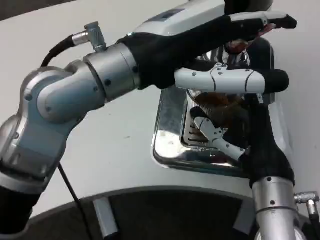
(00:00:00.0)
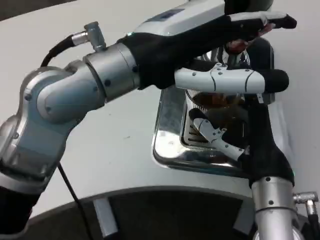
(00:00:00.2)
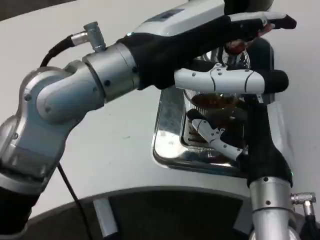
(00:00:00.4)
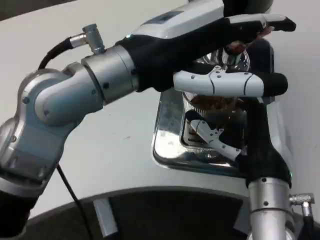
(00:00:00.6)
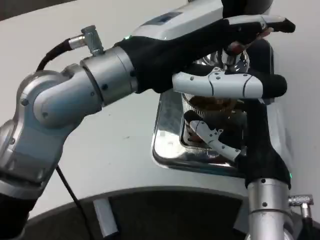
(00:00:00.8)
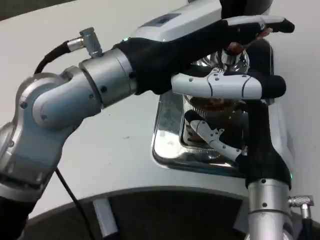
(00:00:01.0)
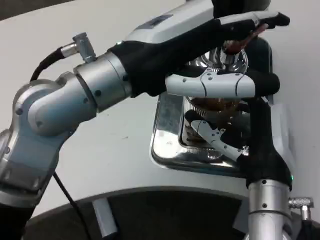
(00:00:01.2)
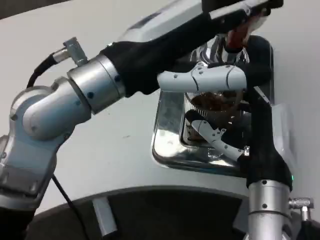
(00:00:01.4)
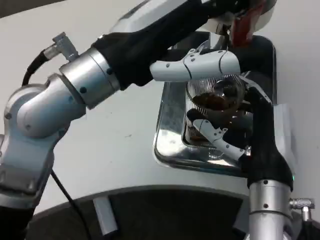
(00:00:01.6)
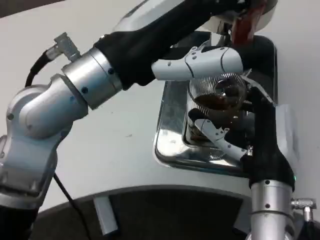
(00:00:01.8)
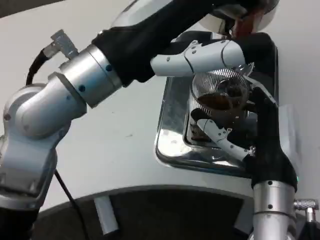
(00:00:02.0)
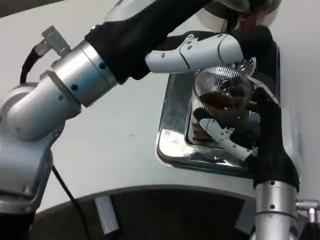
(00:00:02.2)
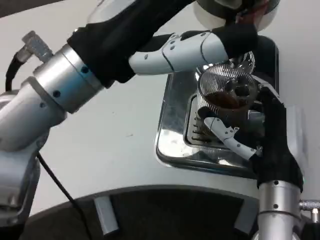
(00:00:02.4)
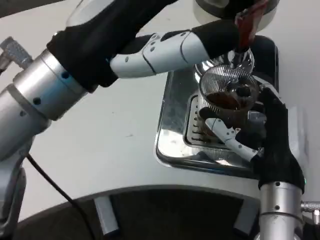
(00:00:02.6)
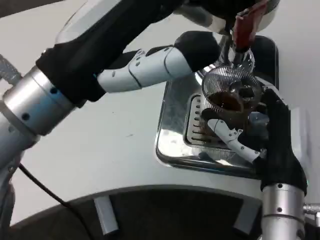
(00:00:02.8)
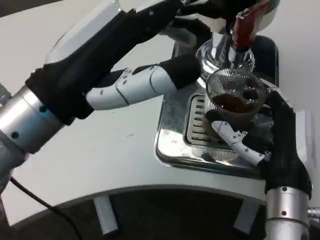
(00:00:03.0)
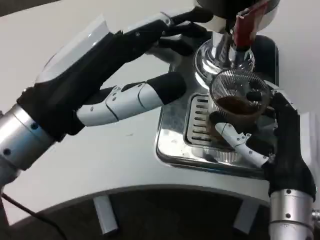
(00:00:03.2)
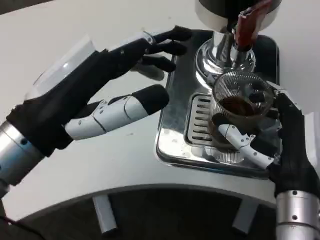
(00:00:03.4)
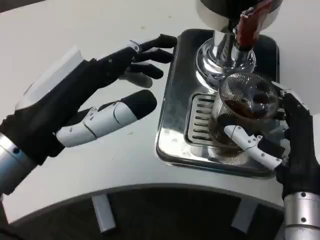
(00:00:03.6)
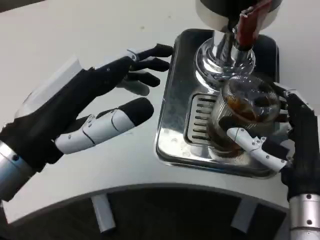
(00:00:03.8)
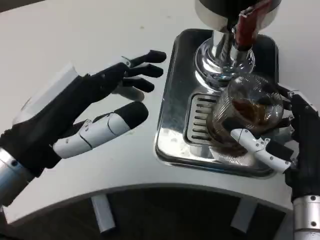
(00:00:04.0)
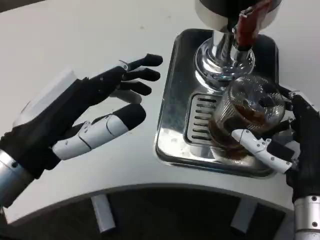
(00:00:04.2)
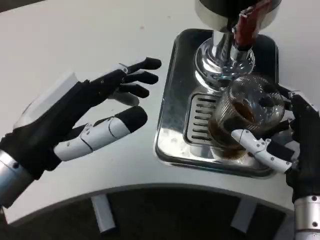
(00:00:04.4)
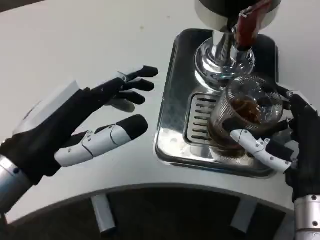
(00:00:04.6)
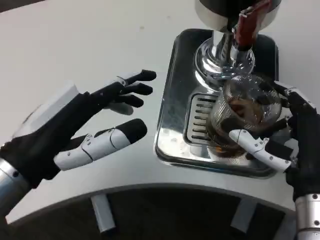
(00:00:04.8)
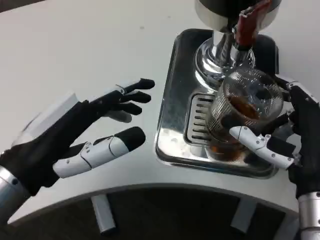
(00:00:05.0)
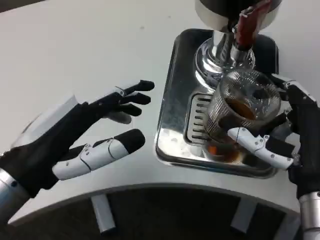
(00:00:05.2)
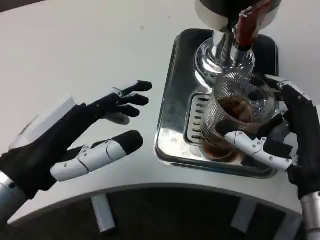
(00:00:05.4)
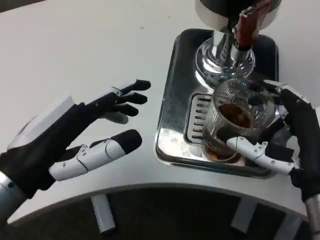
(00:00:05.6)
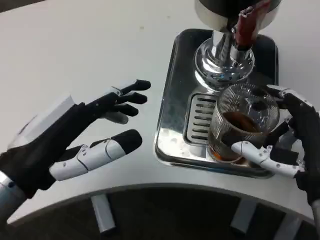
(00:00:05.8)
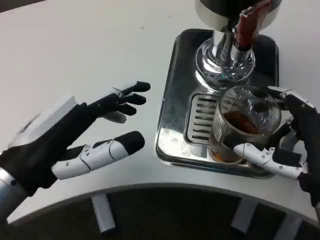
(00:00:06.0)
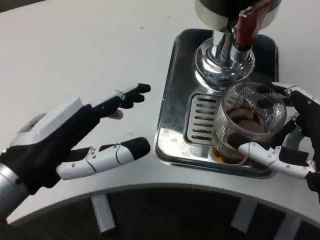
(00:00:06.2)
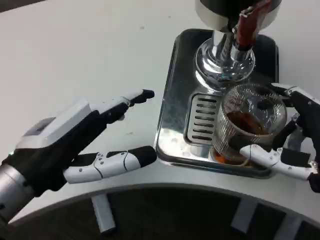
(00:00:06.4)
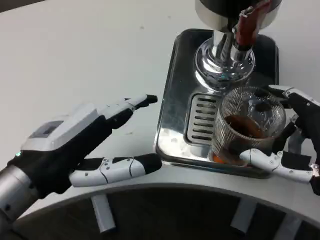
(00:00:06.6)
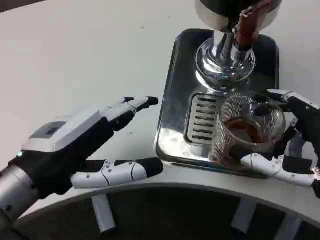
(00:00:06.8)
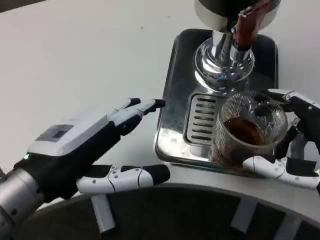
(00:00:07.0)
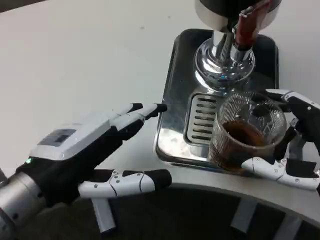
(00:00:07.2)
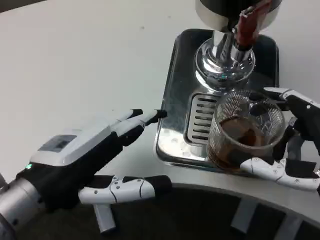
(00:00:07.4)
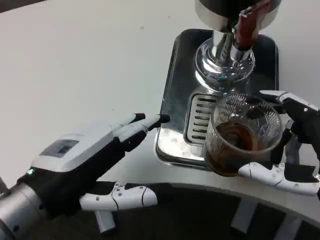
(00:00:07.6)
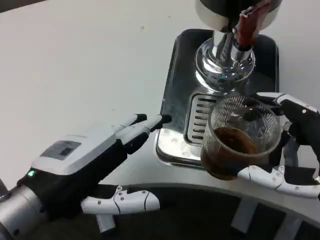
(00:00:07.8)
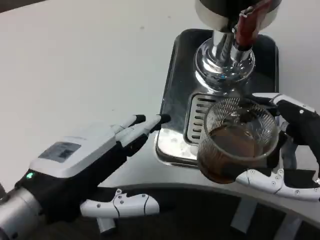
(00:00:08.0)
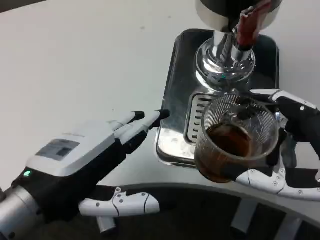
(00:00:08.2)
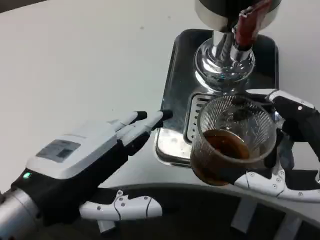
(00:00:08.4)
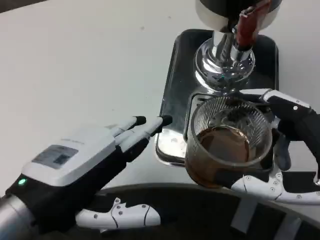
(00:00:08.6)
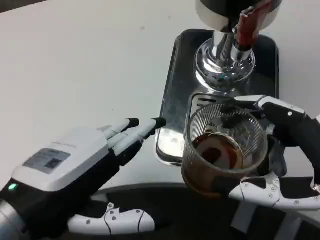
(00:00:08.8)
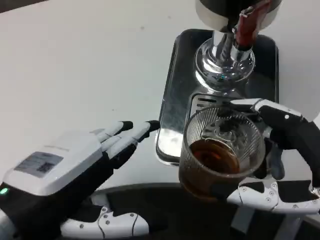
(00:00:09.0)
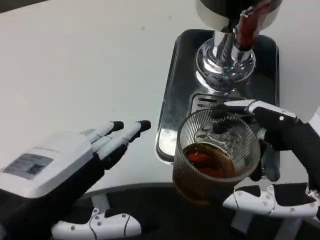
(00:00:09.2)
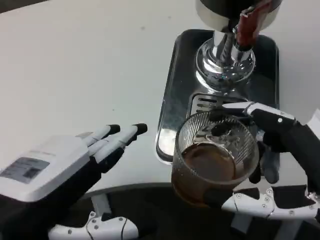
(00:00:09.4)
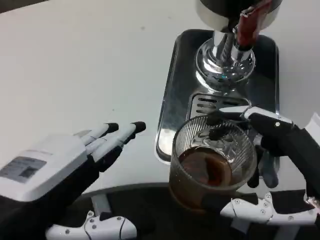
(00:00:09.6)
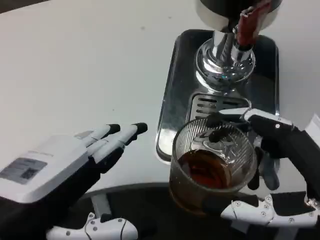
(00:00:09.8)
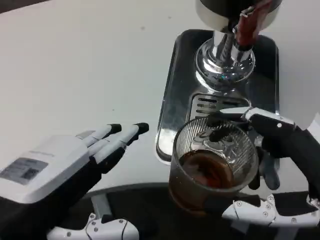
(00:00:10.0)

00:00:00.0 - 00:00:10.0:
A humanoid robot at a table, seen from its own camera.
Task of the whole recording: Grasp the cup under the faucet to collect the drink, then remove the cup.
00:00:01.4 - 00:00:02.8: The left hand ends up approximately 5 cm from where it was.
00:00:02.8 - 00:00:04.2: The left hand is displaced downward by approximately 5 cm.

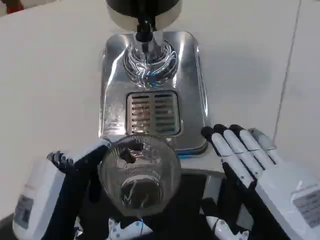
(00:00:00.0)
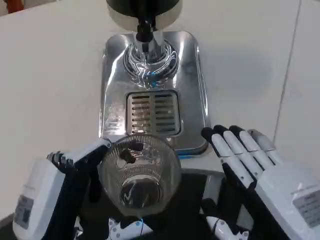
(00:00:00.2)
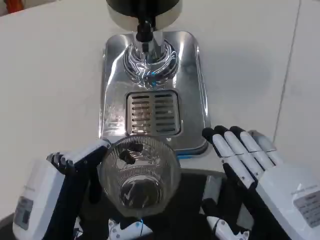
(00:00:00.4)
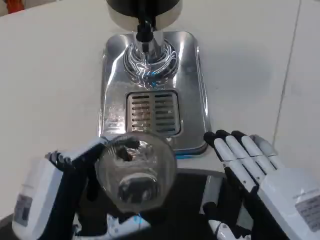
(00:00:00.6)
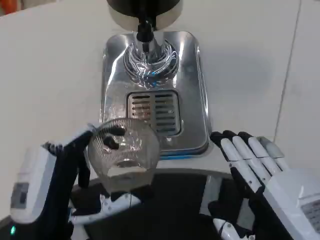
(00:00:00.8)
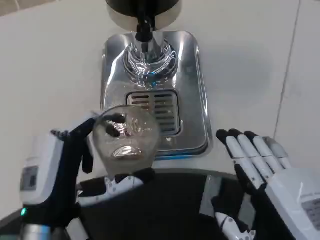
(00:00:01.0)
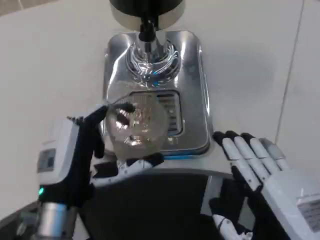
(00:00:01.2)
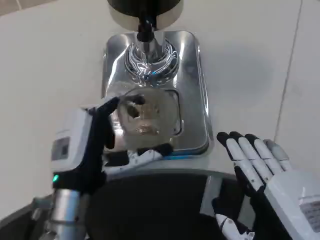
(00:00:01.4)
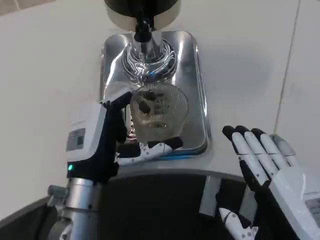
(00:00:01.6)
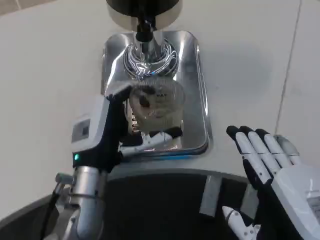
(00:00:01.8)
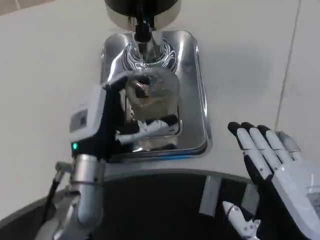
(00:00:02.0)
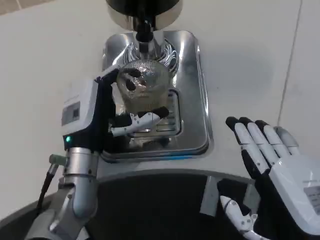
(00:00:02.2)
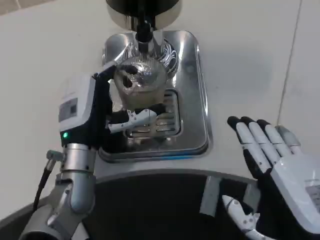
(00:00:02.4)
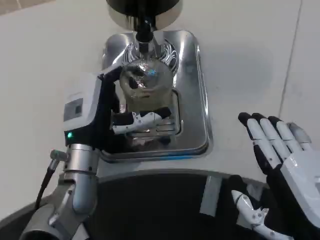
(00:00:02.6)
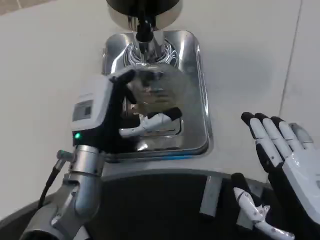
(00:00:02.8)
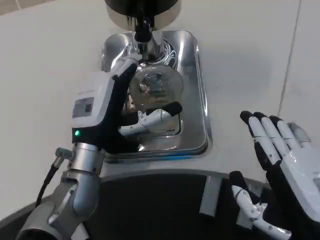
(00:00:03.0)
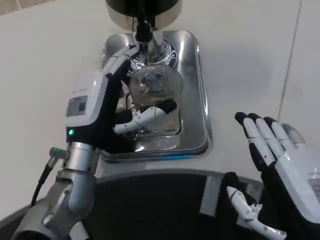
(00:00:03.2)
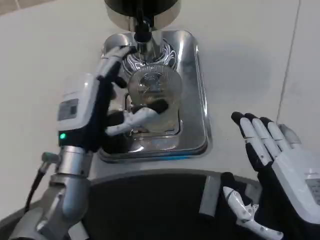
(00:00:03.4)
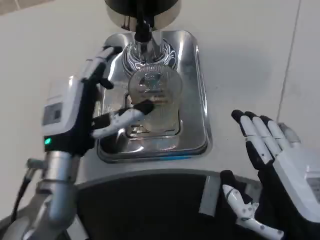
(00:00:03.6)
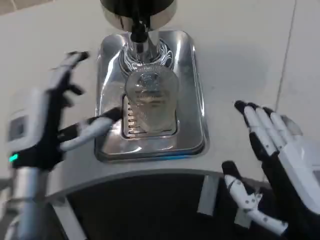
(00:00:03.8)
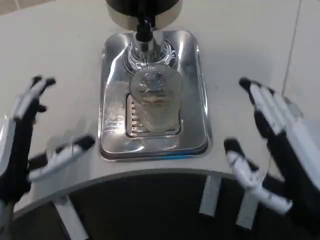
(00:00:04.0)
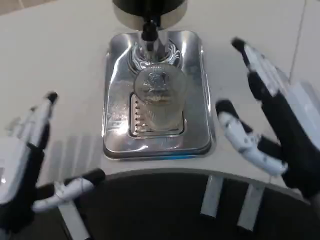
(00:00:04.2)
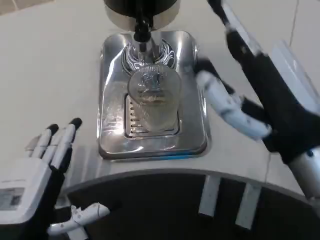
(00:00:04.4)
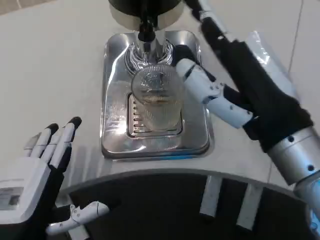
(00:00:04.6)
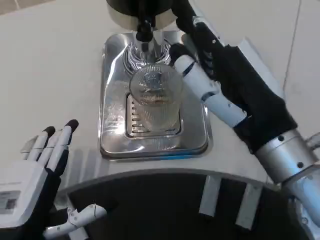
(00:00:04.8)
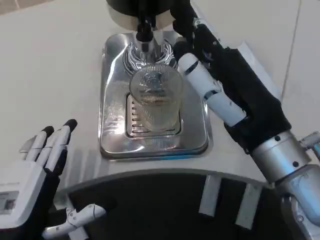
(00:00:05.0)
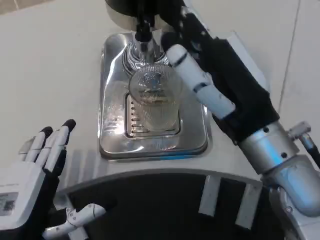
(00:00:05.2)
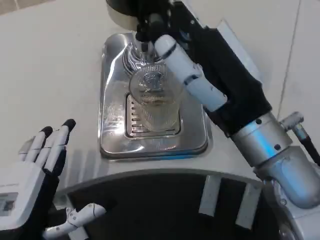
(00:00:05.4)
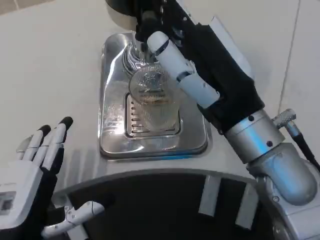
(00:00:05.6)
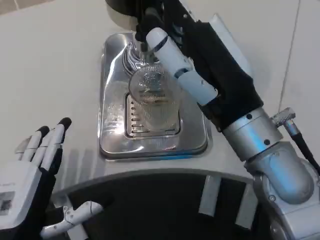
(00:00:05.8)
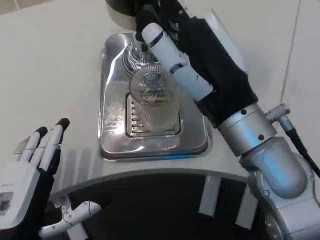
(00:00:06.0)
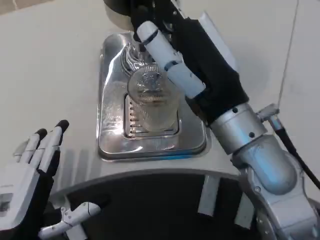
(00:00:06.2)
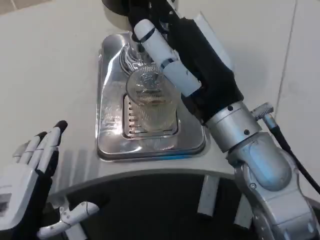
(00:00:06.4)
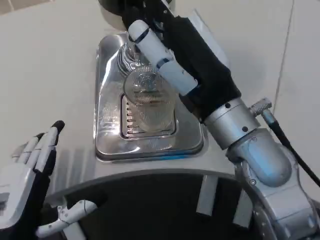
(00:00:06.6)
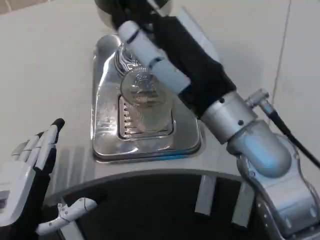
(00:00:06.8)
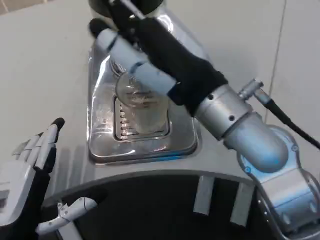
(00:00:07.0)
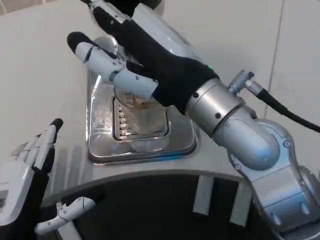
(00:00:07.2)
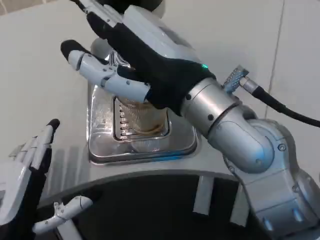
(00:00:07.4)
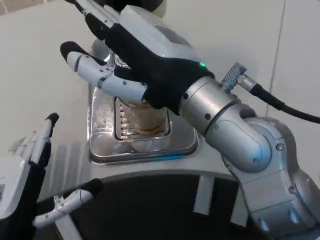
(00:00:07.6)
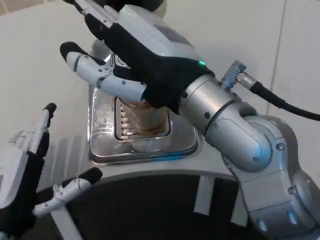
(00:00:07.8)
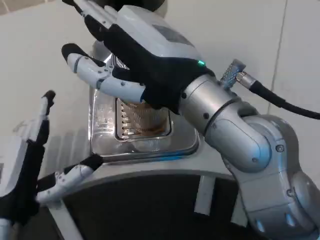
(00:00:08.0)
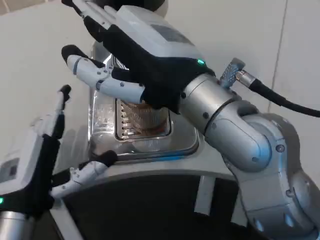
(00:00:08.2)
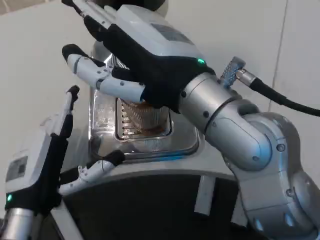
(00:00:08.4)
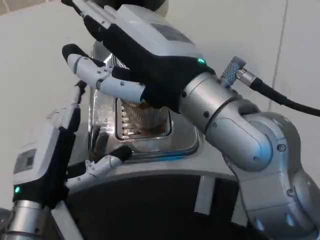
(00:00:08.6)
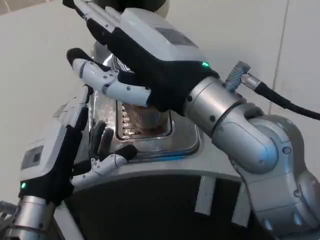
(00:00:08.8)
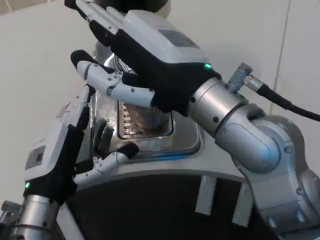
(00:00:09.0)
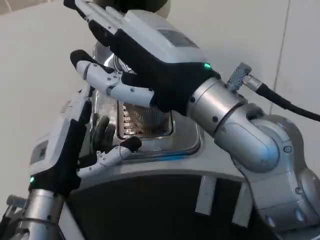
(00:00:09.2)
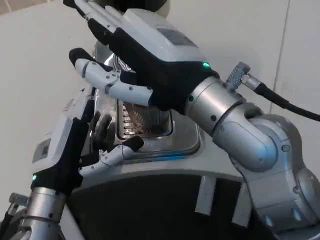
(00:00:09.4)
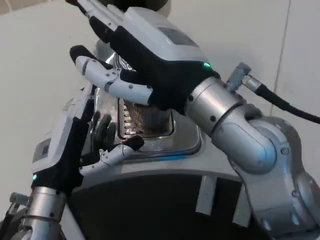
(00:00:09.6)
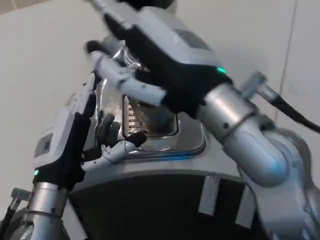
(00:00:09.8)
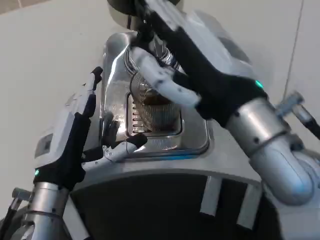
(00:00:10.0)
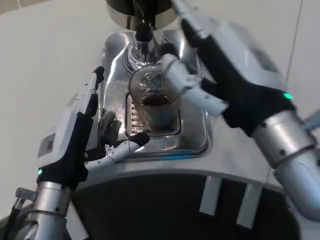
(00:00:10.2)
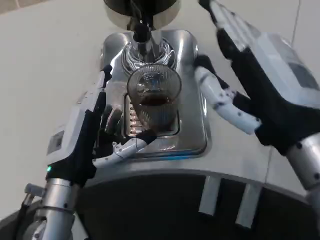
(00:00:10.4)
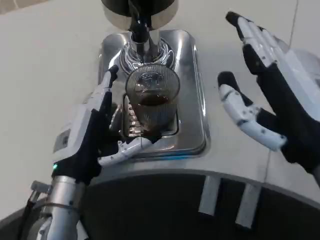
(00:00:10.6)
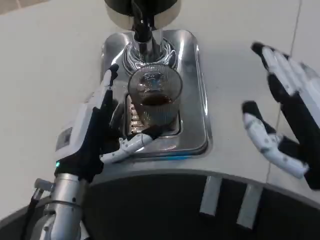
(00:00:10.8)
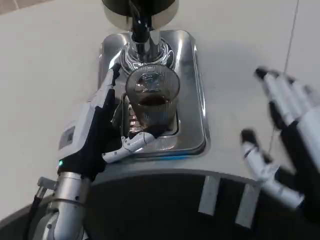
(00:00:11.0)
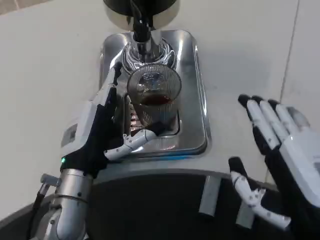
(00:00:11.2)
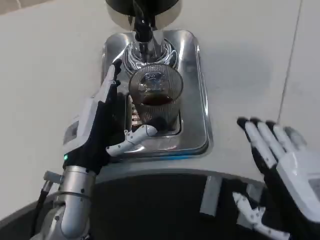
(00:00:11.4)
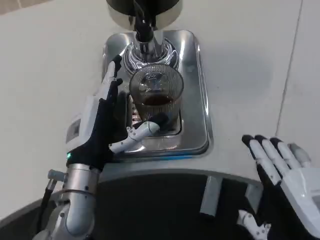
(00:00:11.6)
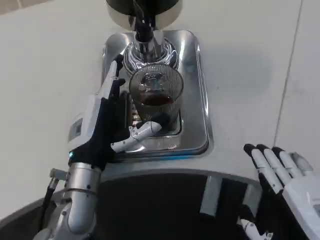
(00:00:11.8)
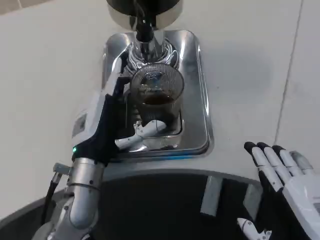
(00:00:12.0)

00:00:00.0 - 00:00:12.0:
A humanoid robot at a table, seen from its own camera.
Task of the whole recording: Grasp the cup under the faucet to collect the drink, then remove the cup.
00:00:00.0 - 00:00:01.6: The left hand goes roughly 10 cm forward.
00:00:01.6 - 00:00:03.0: The left hand changes place by some 5 cm.
00:00:03.0 - 00:00:04.4: The right hand goes roughly 10 cm upward and forward; the left hand shifts about 15 cm backward and to the left.
00:00:04.4 - 00:00:06.0: The right hand heads forward and to the left, covering about 10 cm.
00:00:06.0 - 00:00:07.6: The right hand is displaced upward by approximately 5 cm.
00:00:07.6 - 00:00:09.0: The left hand heads forward, covering some 5 cm.
00:00:09.0 - 00:00:10.4: The right hand goes approximately 10 cm to the right.
00:00:10.4 - 00:00:12.0: The right hand is displaced downward and backward by some 15 cm.
